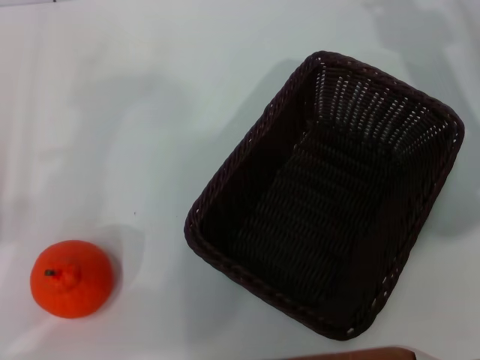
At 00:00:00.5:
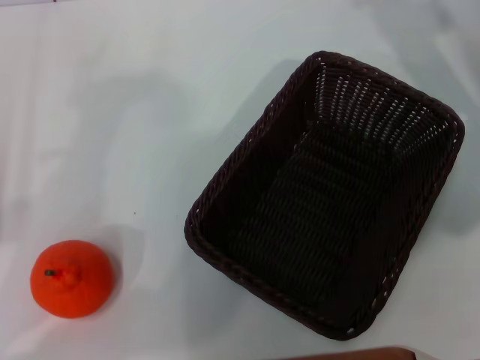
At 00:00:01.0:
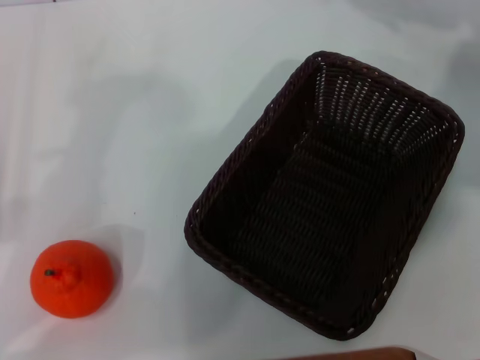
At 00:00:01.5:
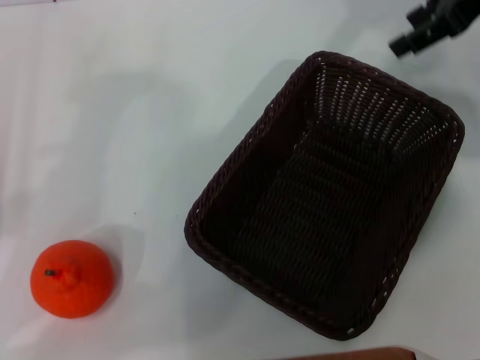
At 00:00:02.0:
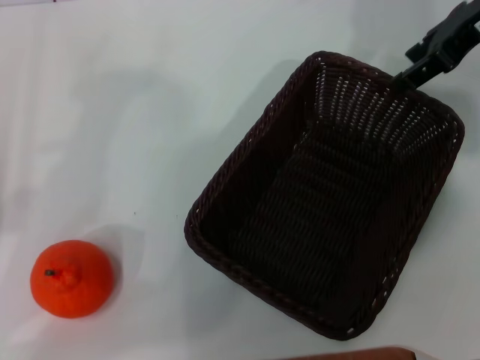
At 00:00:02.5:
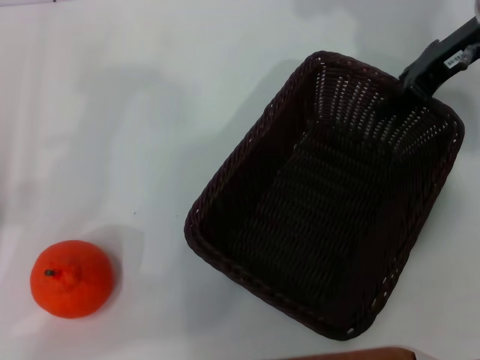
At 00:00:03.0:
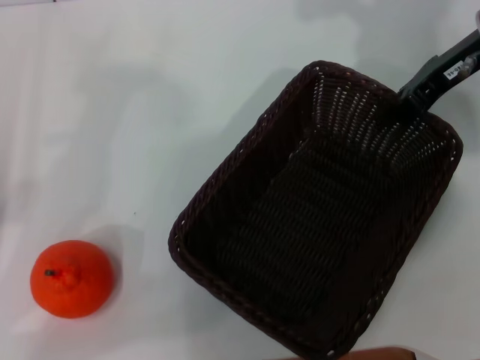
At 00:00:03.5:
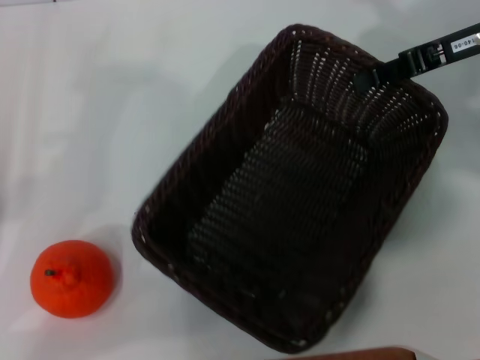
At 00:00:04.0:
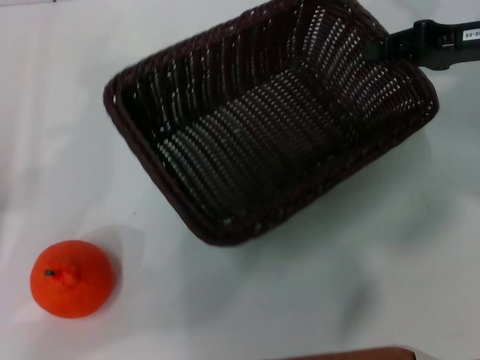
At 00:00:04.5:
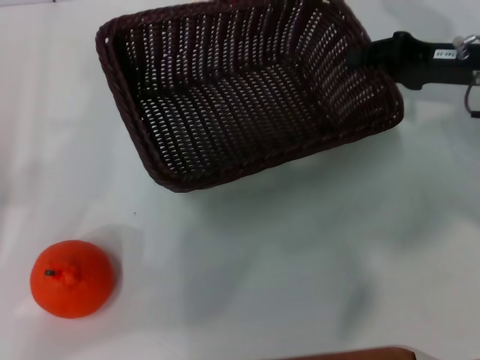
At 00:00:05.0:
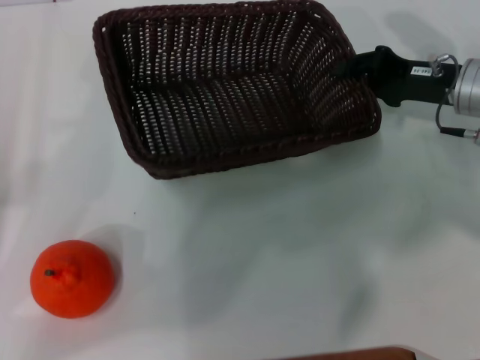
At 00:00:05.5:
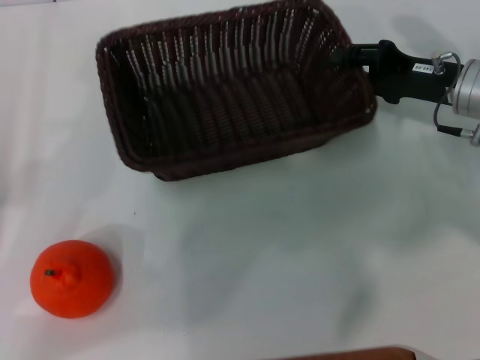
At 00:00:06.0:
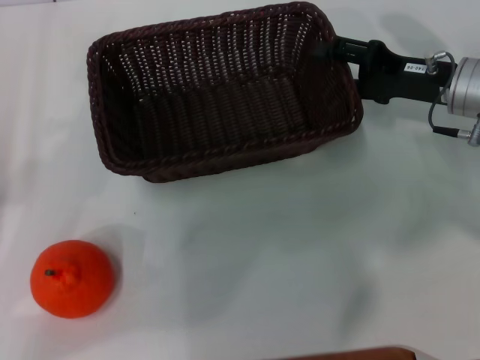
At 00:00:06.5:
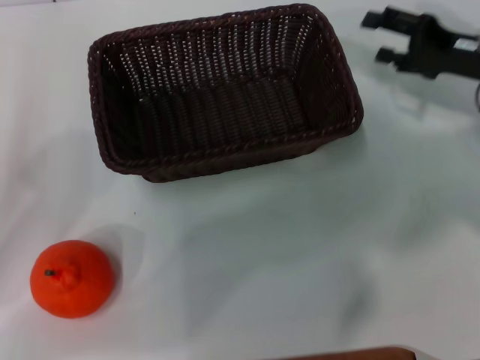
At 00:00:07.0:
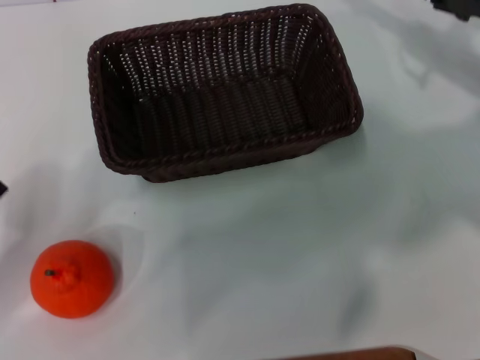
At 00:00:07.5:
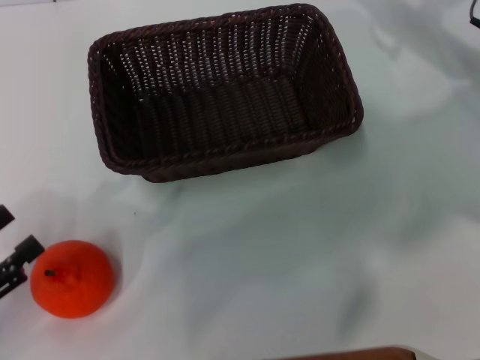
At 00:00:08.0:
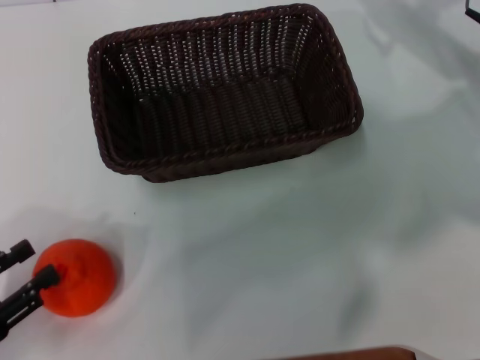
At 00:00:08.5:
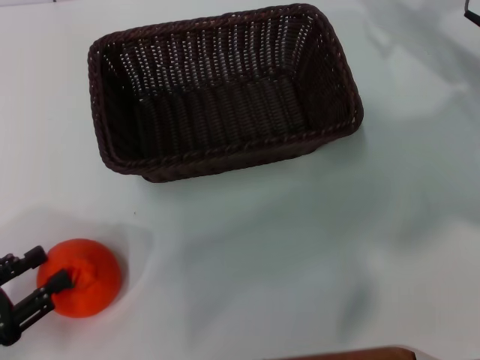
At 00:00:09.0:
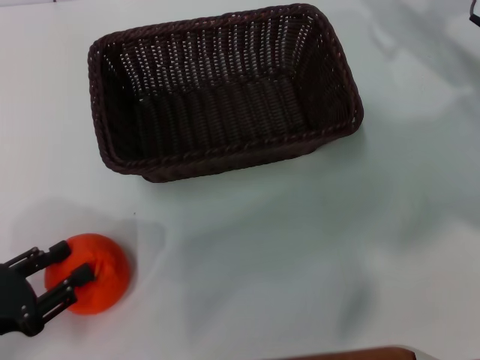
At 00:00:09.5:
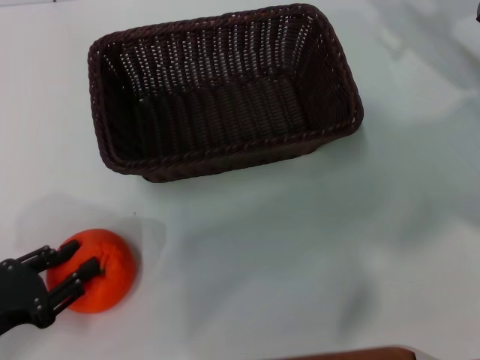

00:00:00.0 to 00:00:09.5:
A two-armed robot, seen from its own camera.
Task of the whole recording: the right gripper pick up the black basket and place it horizontally in the middle of the table, the left gripper pick up the orange and place it into the black basket.
Step, 00:00:00.0 to 00:00:03.5: Pick up the dark basket with the right gripper.
Step, 00:00:04.0 to 00:00:06.0: Place the dark basket in the center of view with the right gripper.
00:00:00.0 to 00:00:02.0: The right gripper heads upward, covering roughly 10 cm.
00:00:02.0 to 00:00:04.0: The right gripper goes approximately 10 cm downward, and closes its fingers.
00:00:04.0 to 00:00:05.5: The right gripper shifts about 10 cm downward.
00:00:05.5 to 00:00:07.5: The right gripper travels upward and forward by roughly 10 cm, and opens its fingers, while the left gripper travels backward by about 10 cm.
00:00:07.5 to 00:00:09.5: The grippers stay close to where they were, moving slightly.

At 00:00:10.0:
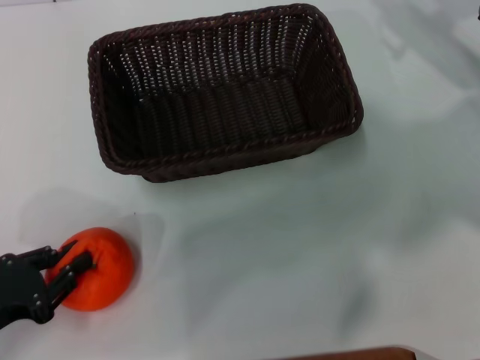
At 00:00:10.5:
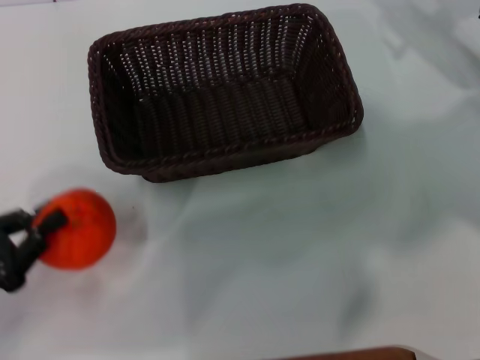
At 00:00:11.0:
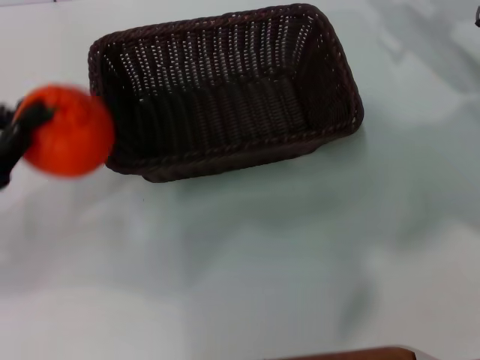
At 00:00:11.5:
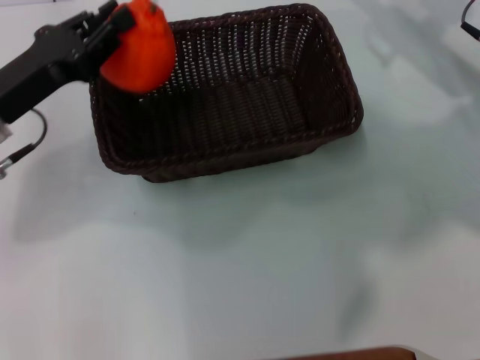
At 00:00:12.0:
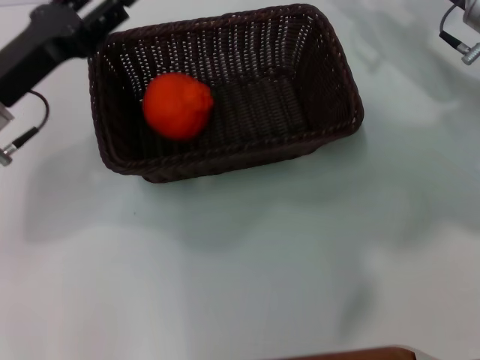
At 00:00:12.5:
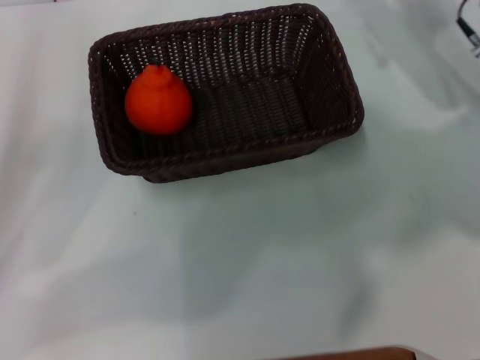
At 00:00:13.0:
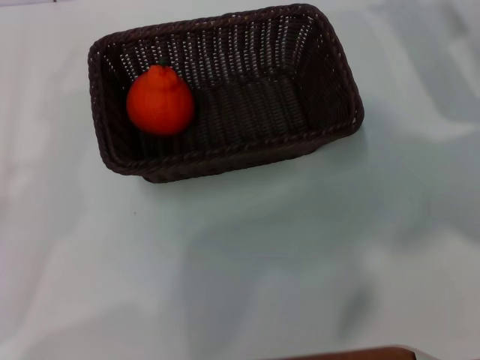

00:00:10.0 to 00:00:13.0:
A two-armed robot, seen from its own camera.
Task of the whole recording: the right gripper pick up the black basket and place it horizontally in the middle of the table, the left gripper pick up the orange and place it into the black basket.
Step, 00:00:11.0 to 00:00:11.5: Place the orange into the dark basket with the left gripper.
00:00:10.0 to 00:00:11.5: The left gripper is displaced forward, upward and to the right by about 20 cm.
00:00:11.5 to 00:00:13.0: The left gripper heads backward and to the left, covering about 20 cm, and opens up.
